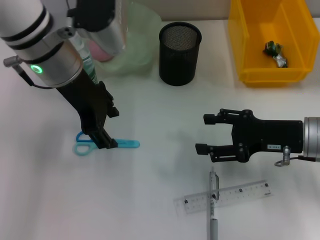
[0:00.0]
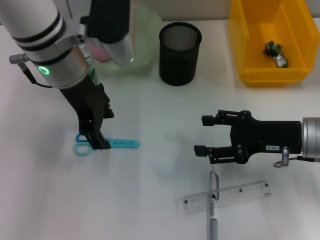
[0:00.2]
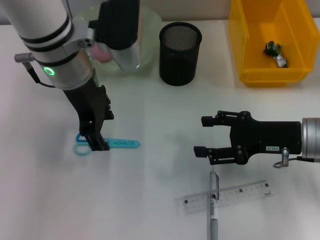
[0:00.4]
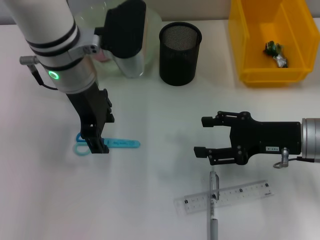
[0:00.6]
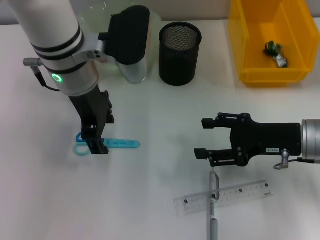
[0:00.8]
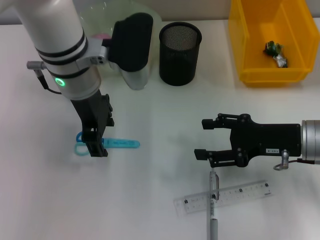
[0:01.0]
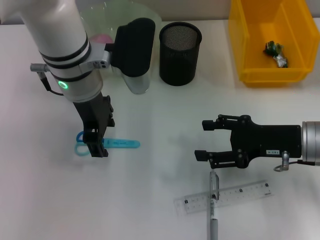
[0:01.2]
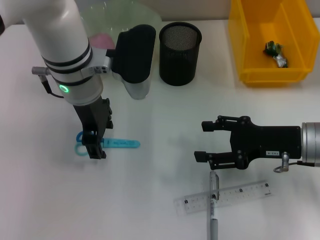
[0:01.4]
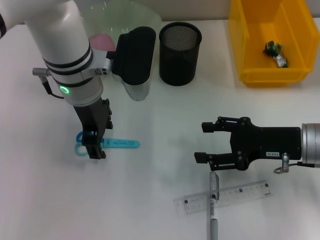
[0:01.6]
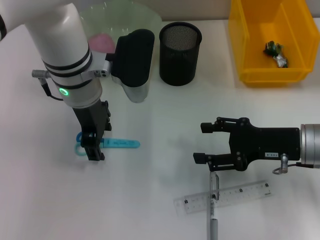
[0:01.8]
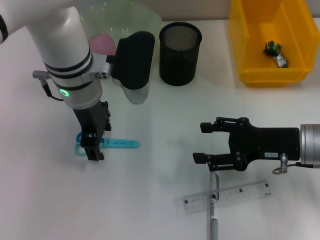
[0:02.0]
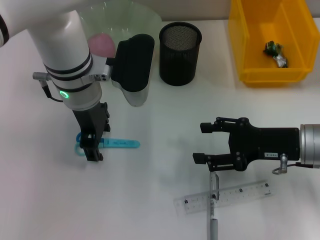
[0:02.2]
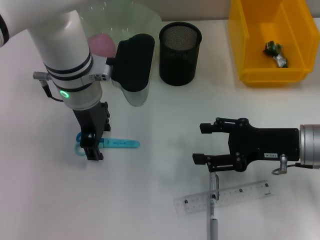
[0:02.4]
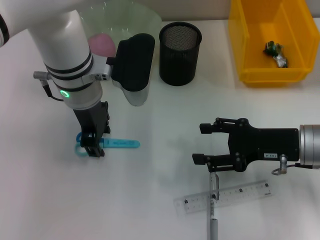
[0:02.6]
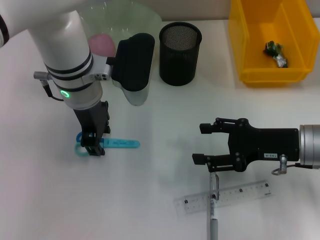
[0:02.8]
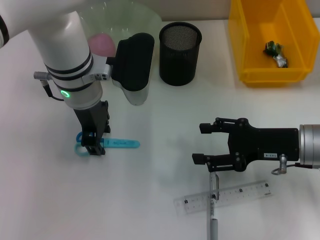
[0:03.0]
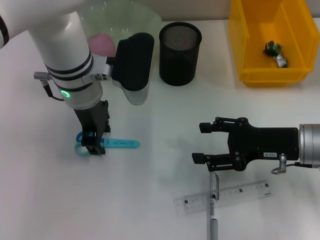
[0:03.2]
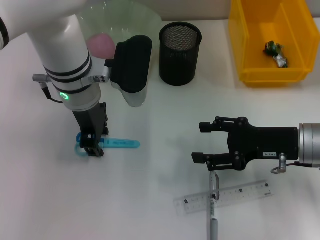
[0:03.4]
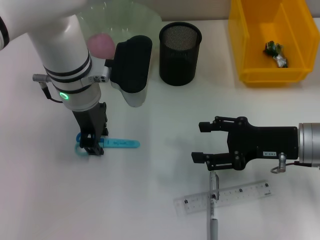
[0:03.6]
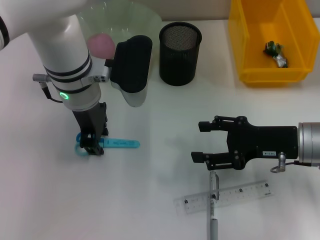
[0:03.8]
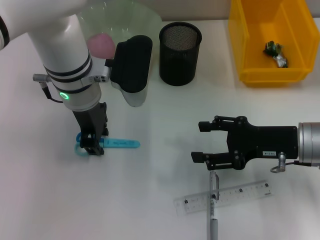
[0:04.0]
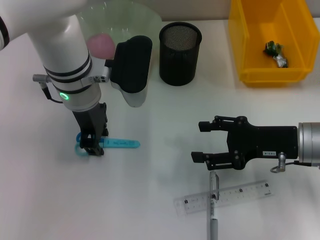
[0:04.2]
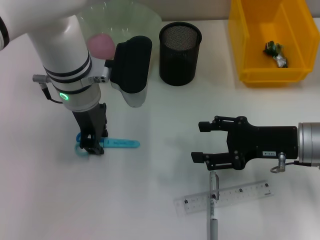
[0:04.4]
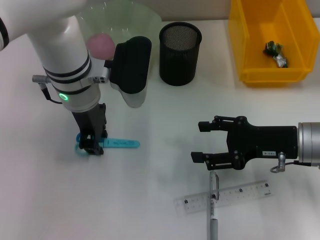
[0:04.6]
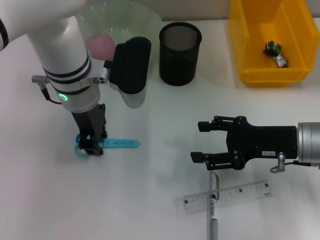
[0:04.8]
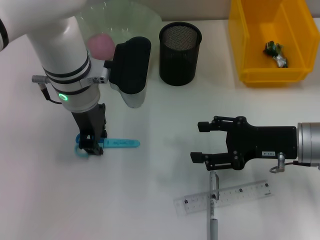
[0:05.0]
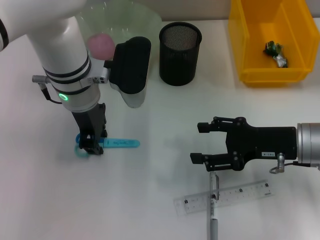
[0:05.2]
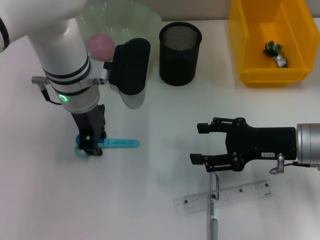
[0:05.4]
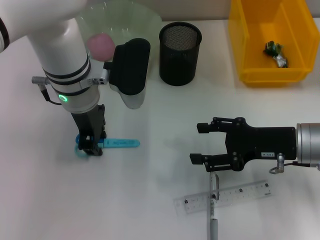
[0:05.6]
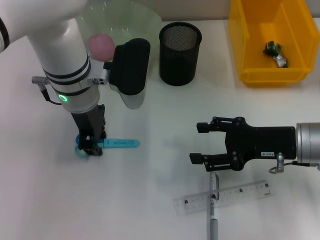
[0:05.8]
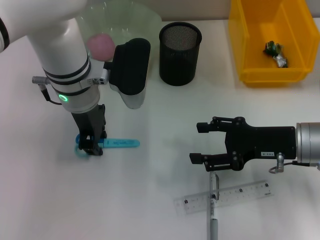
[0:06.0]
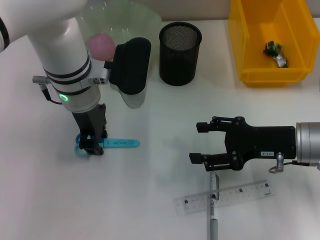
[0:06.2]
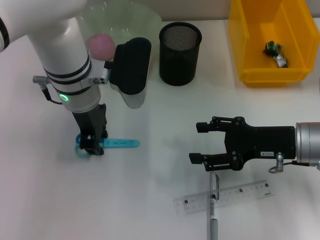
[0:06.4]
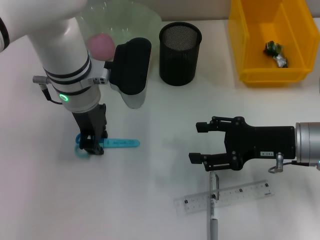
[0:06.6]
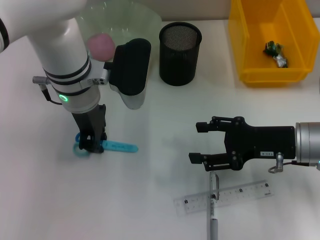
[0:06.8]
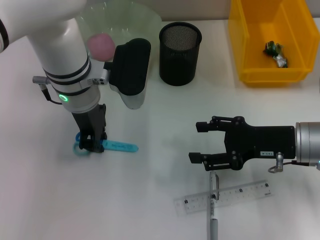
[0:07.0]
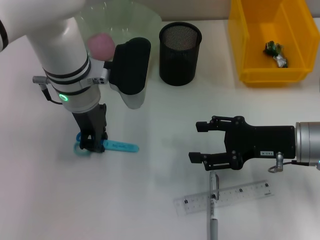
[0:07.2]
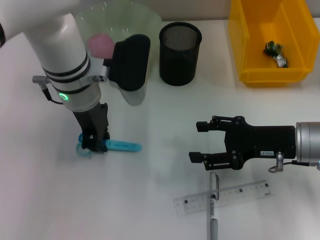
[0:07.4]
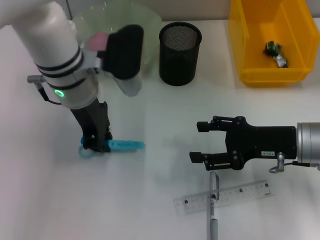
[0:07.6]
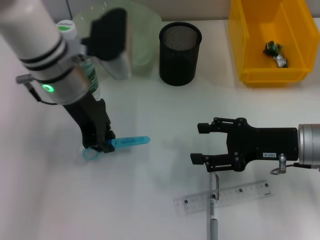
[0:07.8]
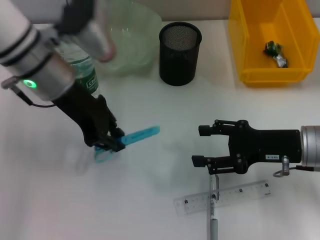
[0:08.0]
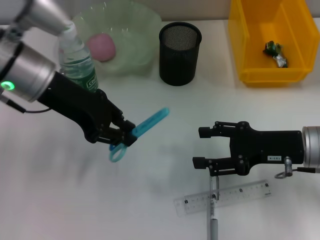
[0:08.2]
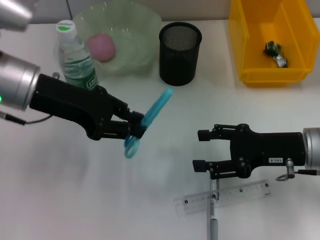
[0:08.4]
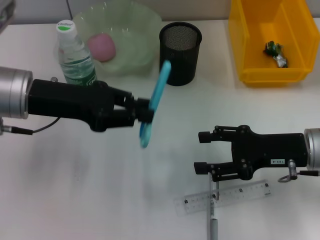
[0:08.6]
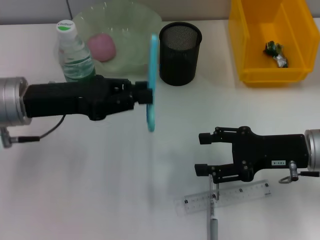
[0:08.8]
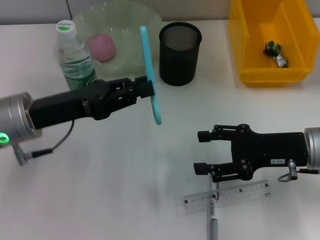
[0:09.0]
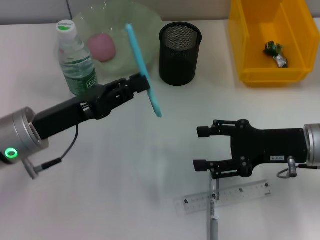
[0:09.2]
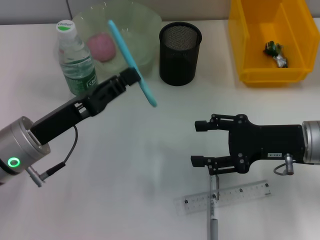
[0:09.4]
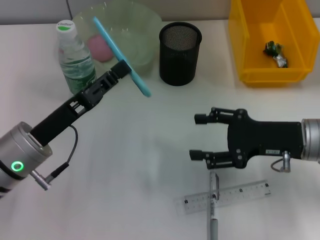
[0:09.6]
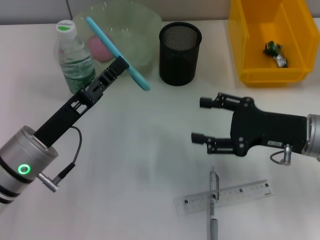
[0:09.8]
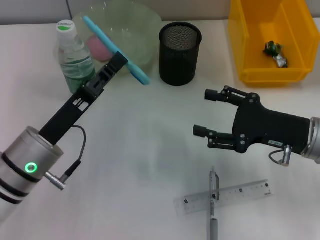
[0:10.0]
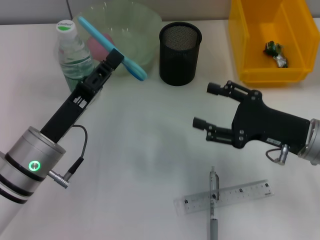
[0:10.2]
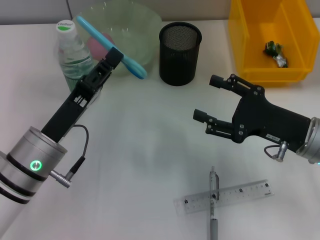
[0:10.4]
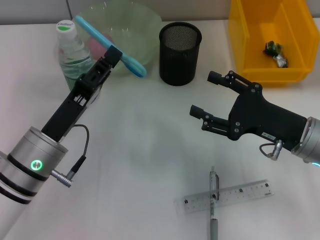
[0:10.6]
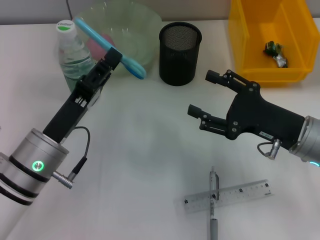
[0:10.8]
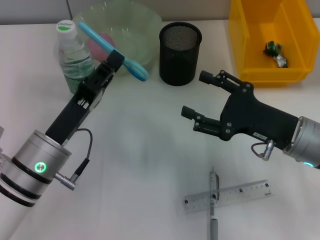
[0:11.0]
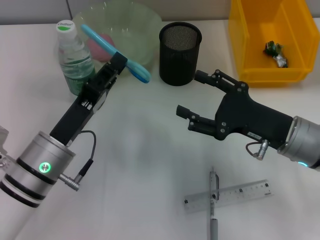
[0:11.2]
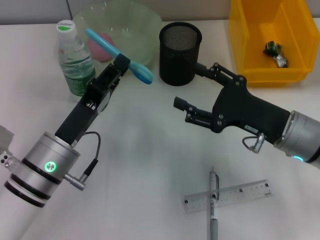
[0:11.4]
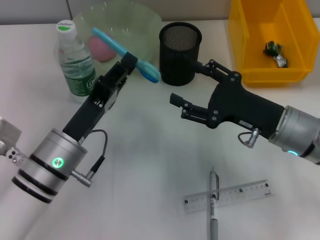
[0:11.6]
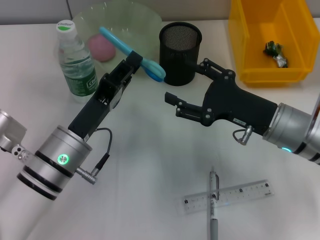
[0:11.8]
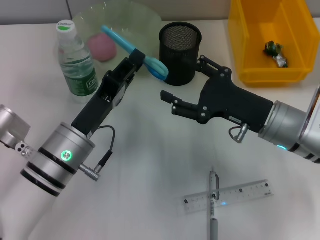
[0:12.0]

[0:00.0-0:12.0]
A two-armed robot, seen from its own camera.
Step, 0:00.0 to 0:07.0: Grab the blue scissors with the left hand.
0:00.0 to 0:01.6: The left gripper changes place by roughly 5 cm.
0:01.6 to 0:03.0: Both grippers stay put.
0:03.0 to 0:06.0: Both grippers stay put.
0:06.0 to 0:07.6: The grippers move only a little.
0:07.6 to 0:09.0: The left gripper heads to the left and backward, covering about 15 cm.
0:09.0 to 0:10.4: The left gripper heads downward, covering approximately 5 cm.
0:10.4 to 0:12.0: The right gripper ends up roughly 5 cm from where it was.

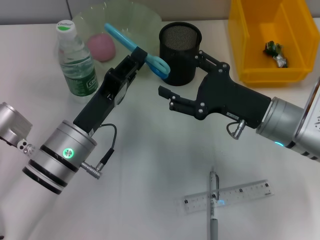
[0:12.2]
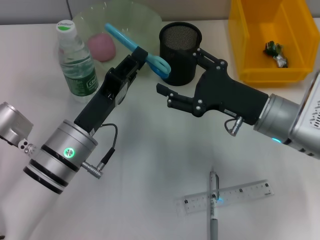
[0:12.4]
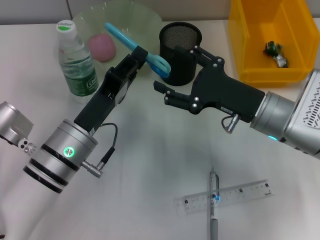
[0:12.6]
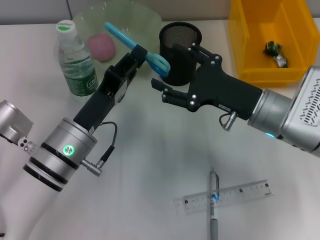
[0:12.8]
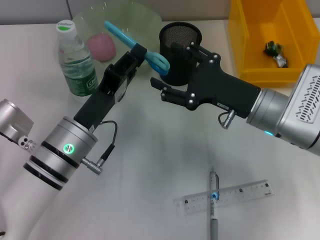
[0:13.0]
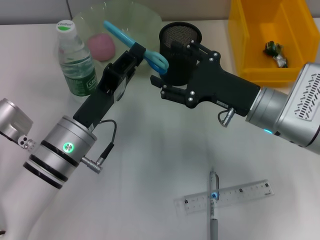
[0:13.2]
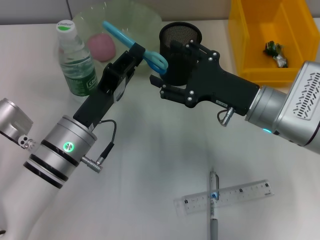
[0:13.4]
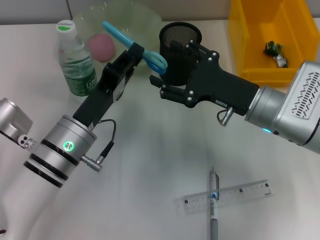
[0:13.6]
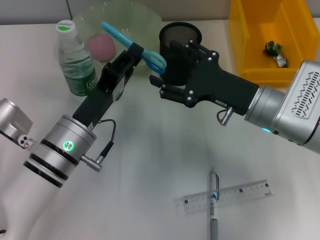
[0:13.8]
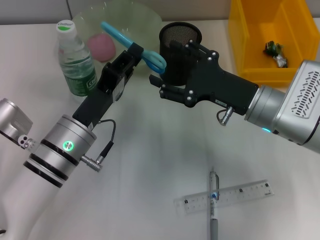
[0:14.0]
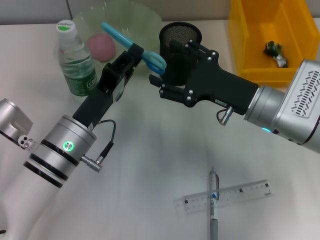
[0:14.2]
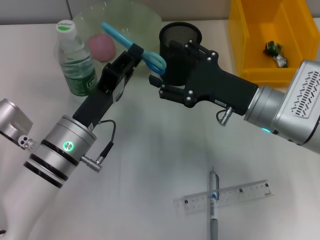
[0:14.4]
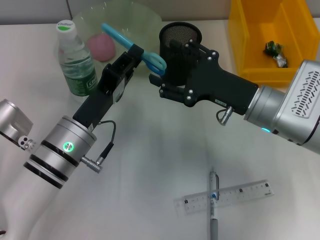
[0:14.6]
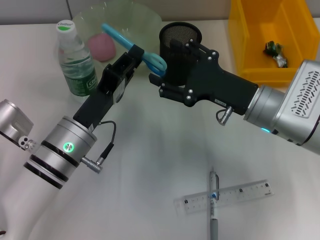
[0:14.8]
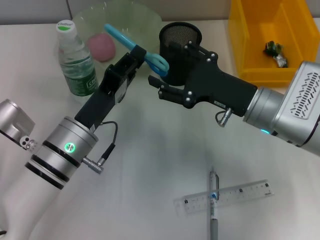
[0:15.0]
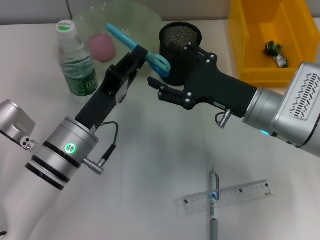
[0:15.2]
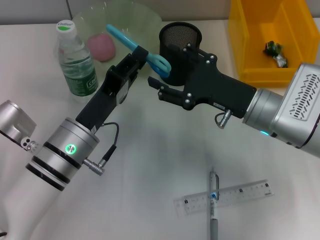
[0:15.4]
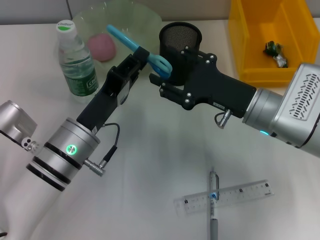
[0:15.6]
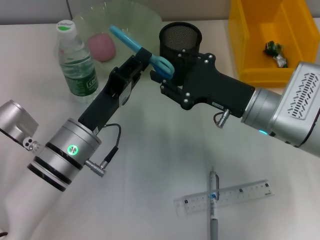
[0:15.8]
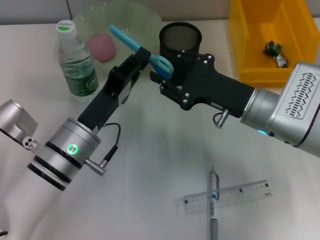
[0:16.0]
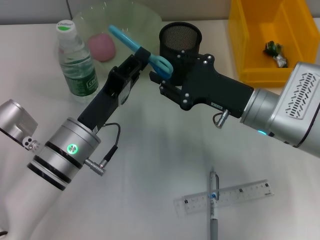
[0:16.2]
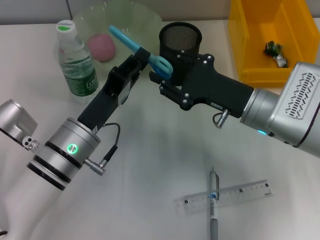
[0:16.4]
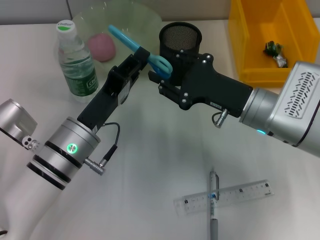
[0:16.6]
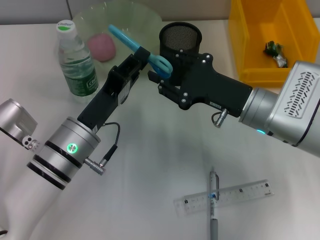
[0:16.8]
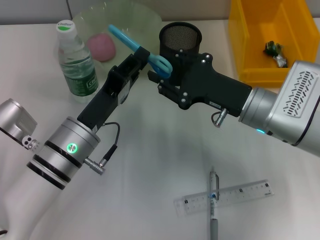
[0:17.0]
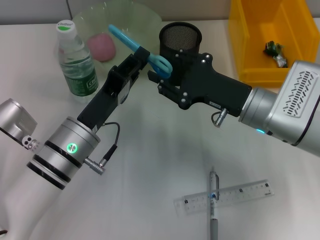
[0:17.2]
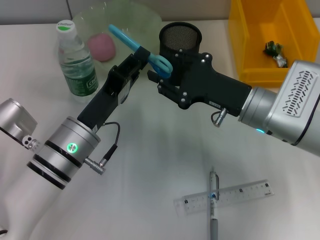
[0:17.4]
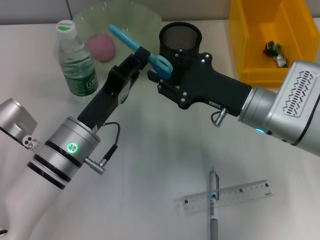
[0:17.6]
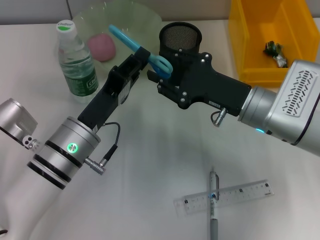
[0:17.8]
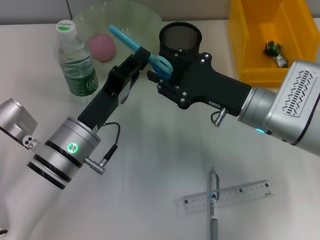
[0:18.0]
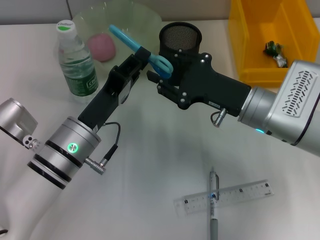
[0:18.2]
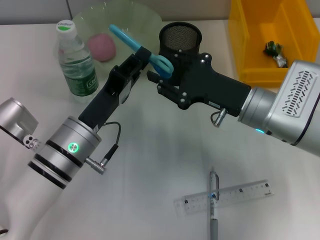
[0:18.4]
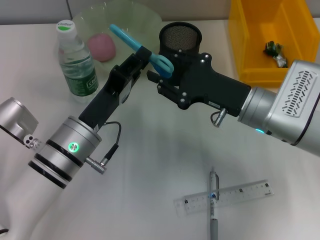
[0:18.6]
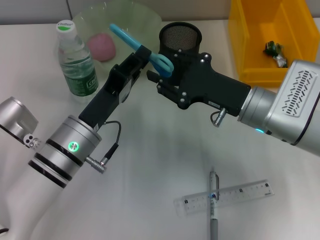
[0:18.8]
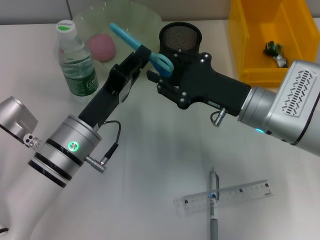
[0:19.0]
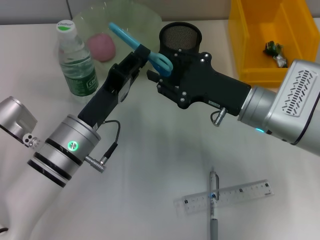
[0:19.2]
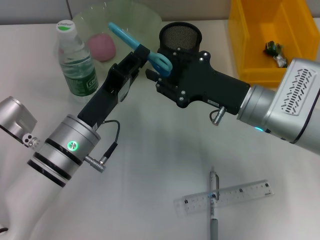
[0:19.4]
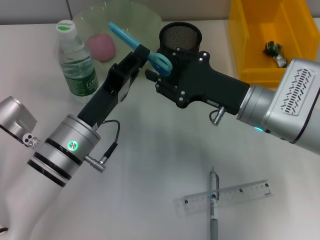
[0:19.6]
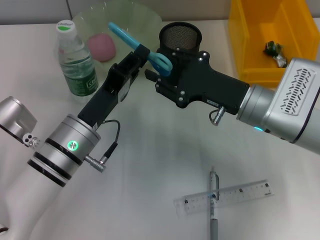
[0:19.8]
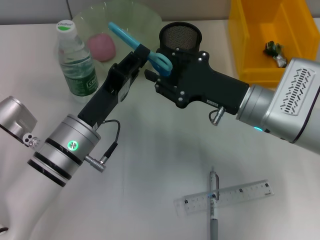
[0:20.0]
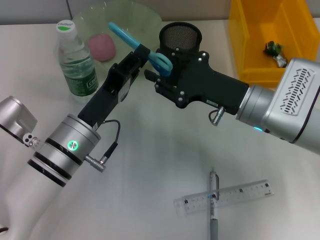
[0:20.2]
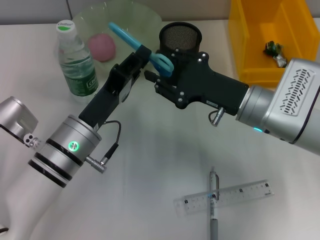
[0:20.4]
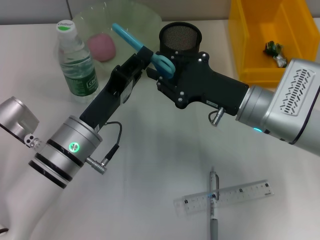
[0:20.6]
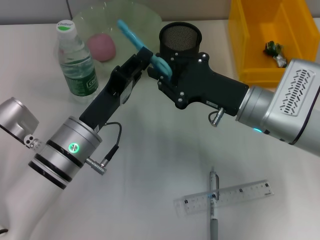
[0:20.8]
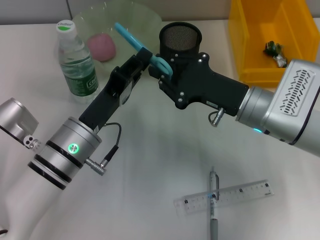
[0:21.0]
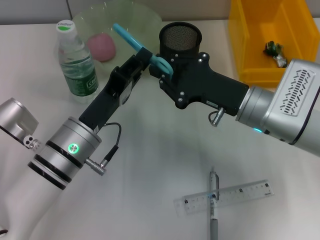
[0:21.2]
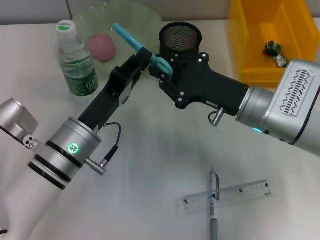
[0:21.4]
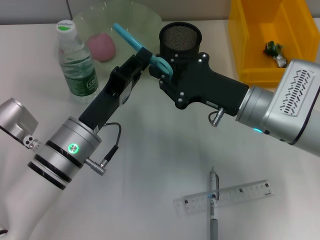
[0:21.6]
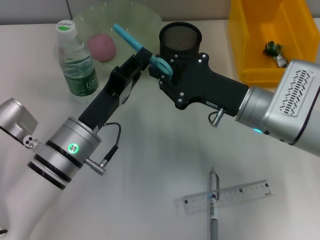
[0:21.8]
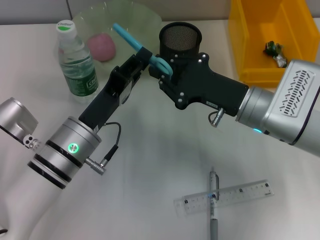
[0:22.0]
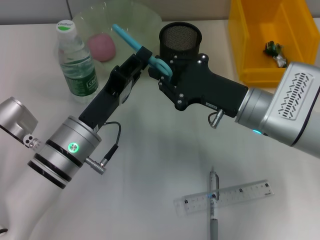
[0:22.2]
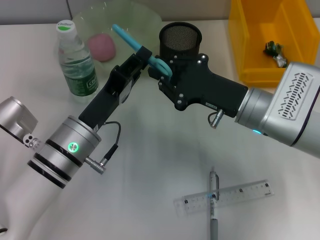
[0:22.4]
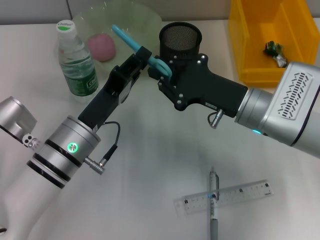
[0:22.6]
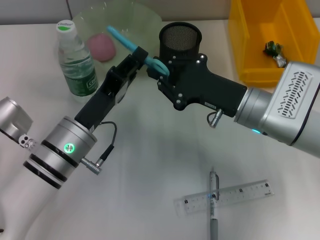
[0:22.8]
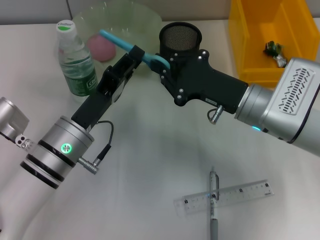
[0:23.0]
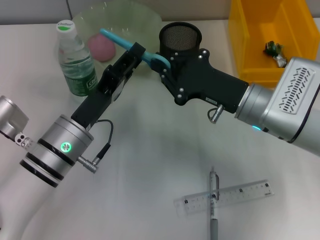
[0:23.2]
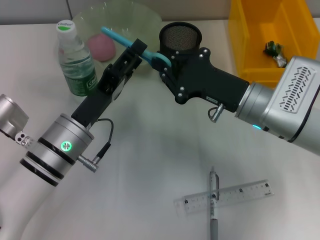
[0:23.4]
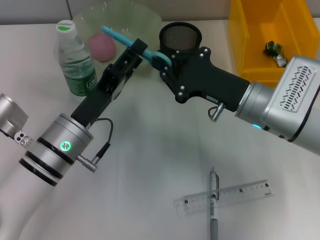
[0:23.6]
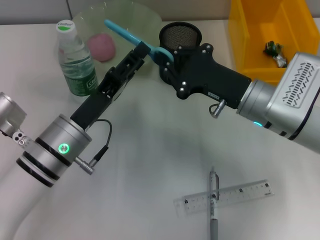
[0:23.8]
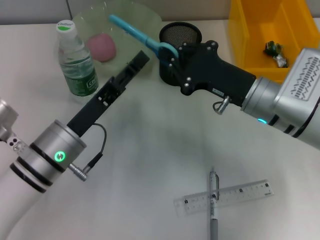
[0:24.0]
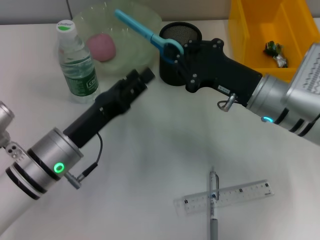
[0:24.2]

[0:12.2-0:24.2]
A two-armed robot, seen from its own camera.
Step, 0:12.2 to 0:23.2: Pass the blue scissors from the left hand to the right hand.
0:12.2 to 0:13.8: The grippers stay close to where they were, moving slightly.
0:13.8 to 0:15.2: Neither gripper changes place.
0:15.2 to 0:16.6: The right gripper closes up.
0:16.6 to 0:22.6: Both grippers stay put.
0:22.6 to 0:24.2: The left gripper opens its fingers.
